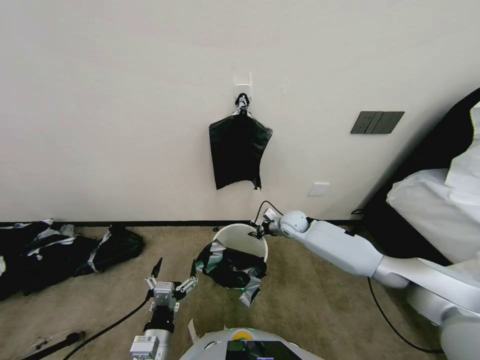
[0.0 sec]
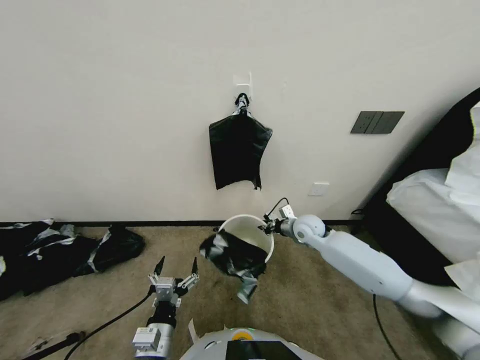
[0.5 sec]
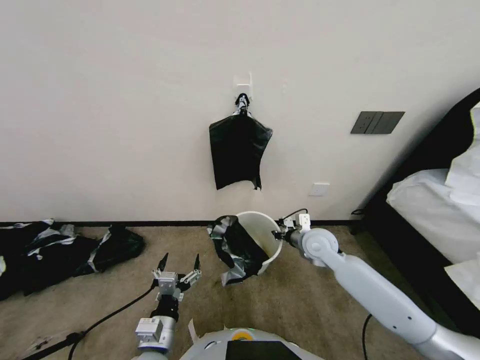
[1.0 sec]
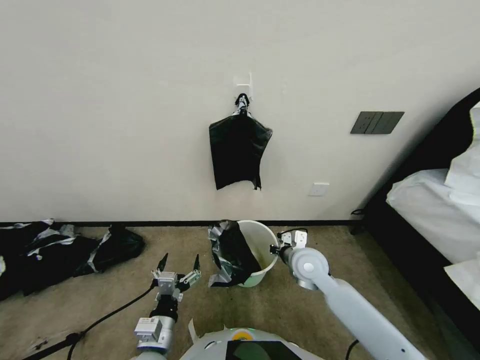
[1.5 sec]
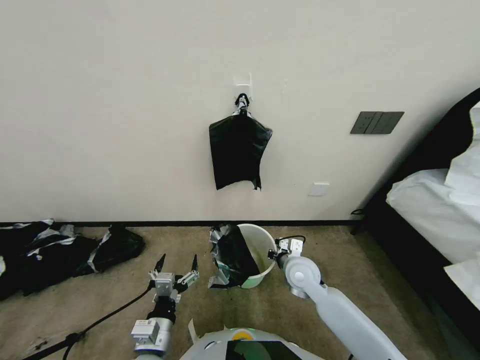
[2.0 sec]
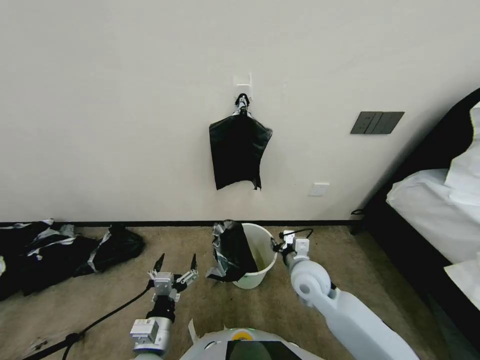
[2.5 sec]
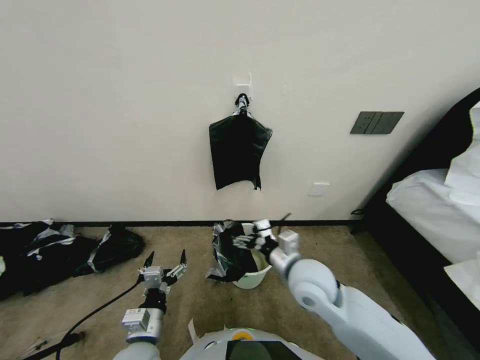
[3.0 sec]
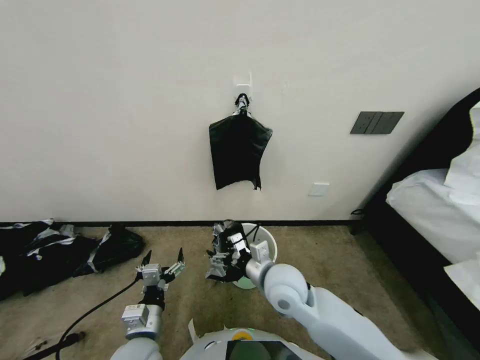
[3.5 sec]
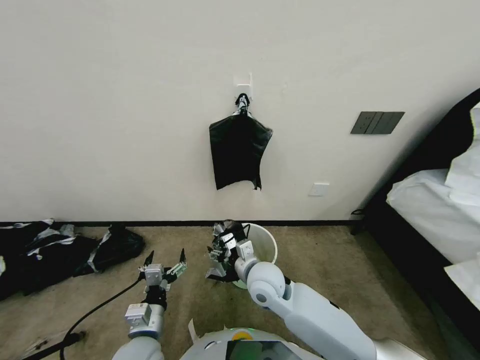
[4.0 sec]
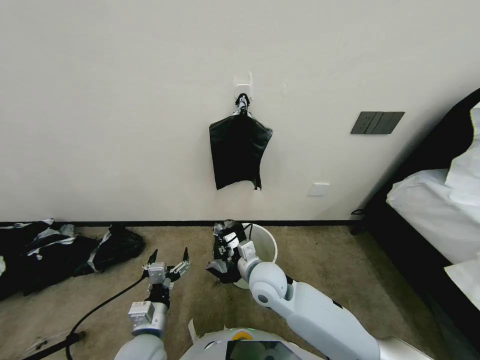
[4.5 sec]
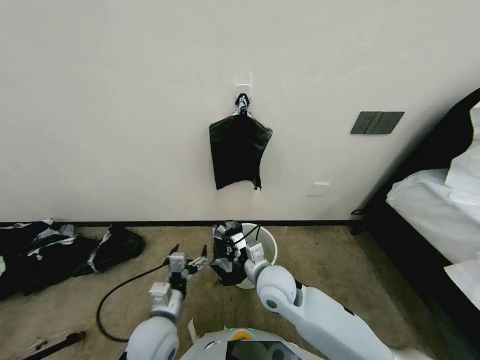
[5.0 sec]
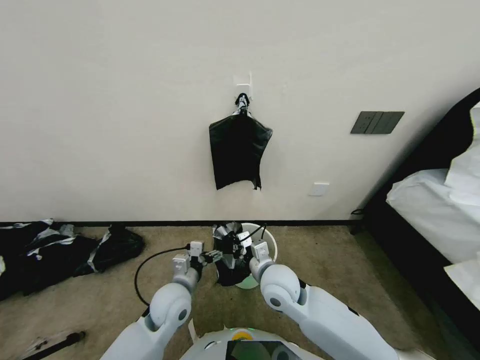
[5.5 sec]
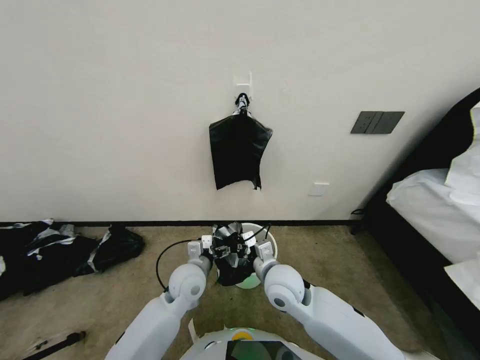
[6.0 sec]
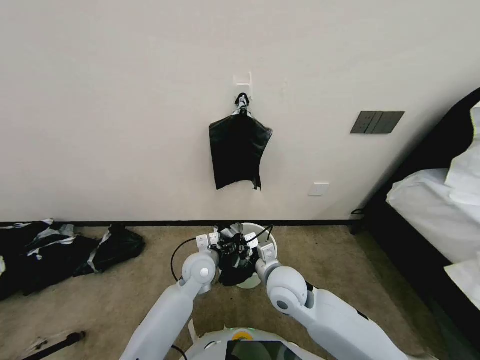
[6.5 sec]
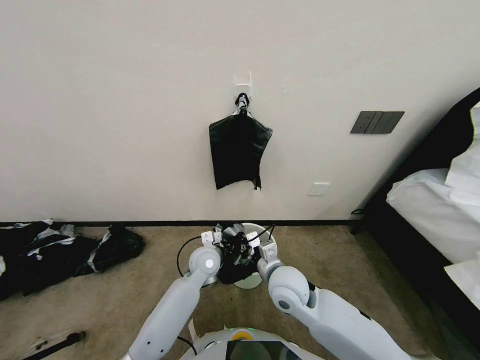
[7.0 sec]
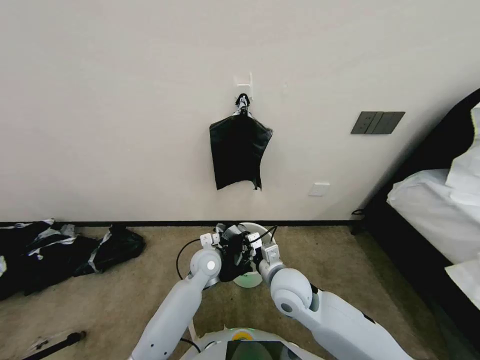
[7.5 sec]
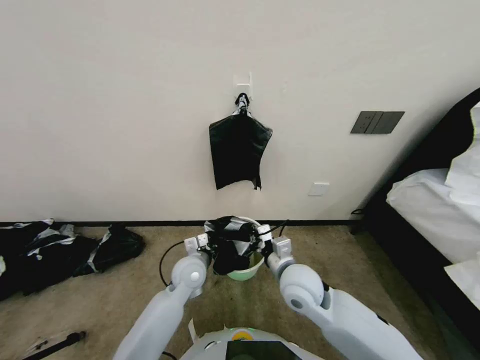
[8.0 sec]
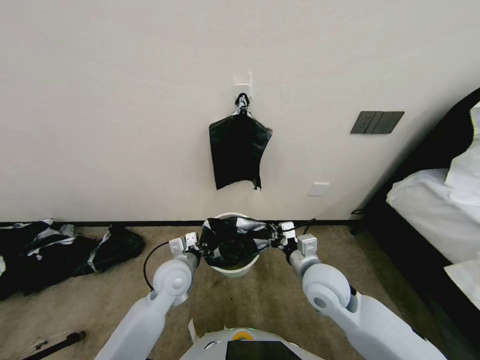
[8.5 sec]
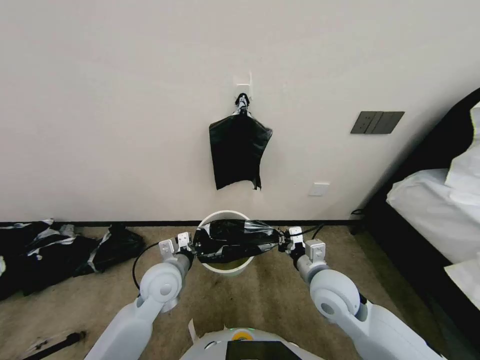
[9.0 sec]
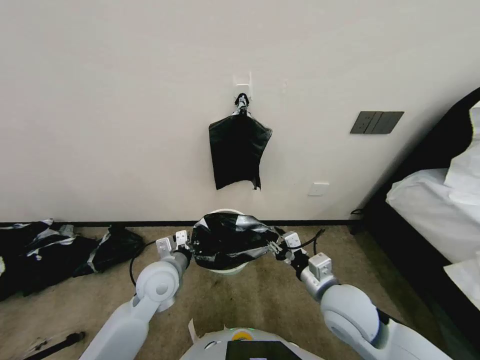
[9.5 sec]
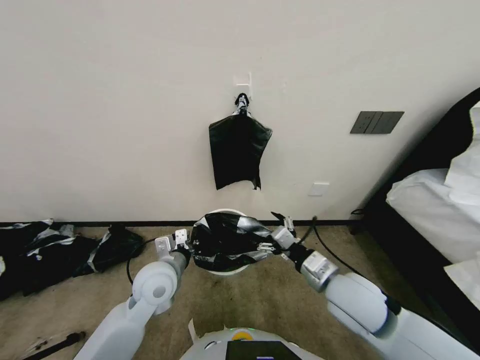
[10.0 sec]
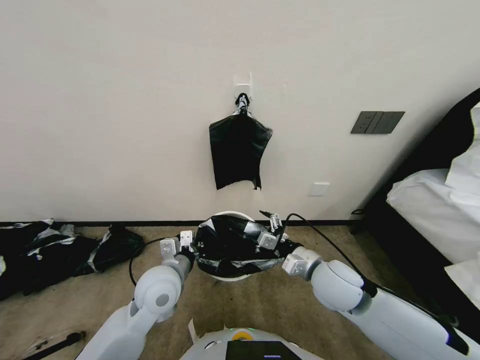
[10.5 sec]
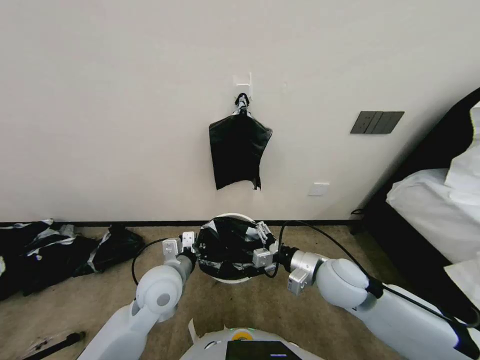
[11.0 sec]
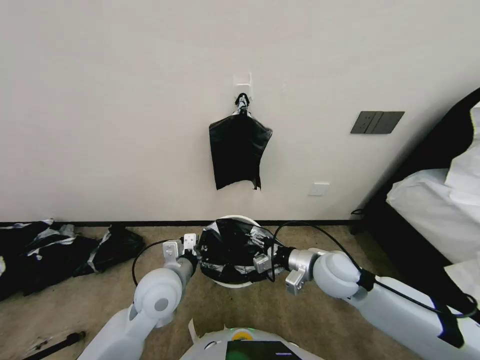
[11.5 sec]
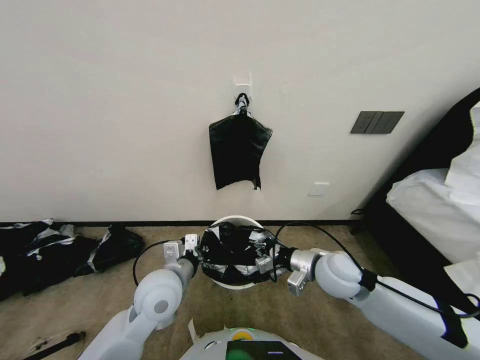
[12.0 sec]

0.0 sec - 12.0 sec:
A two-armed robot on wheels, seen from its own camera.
Task of the whole recording: Place a trash bag onto the trash bin.
0.0 sec - 2.0 sec: The right gripper travels backward by some 20 cm.
2.0 sec - 4.0 sec: The right gripper moves to the left, about 10 cm, and opens up.
4.0 sec - 6.0 sec: The right gripper closes its fingers. Meanwhile the left gripper heads forward and to the right, covering roughly 15 cm.
6.0 sec - 8.0 sec: The left gripper travels forward by about 5 cm, and closes.
8.0 sec - 10.0 sec: The right gripper shifts approximately 10 cm to the right, and opens its fingers, while the left gripper travels upward, to the left and backward by approximately 15 cm.
10.0 sec - 12.0 sec: The right gripper shifts some 5 cm forward, and closes up.

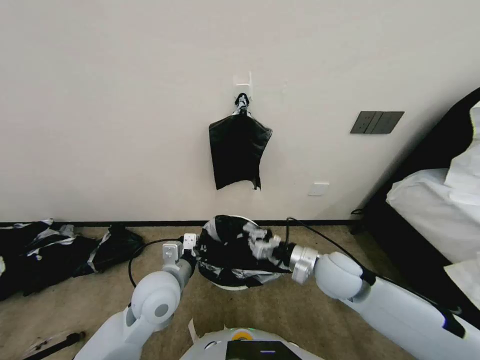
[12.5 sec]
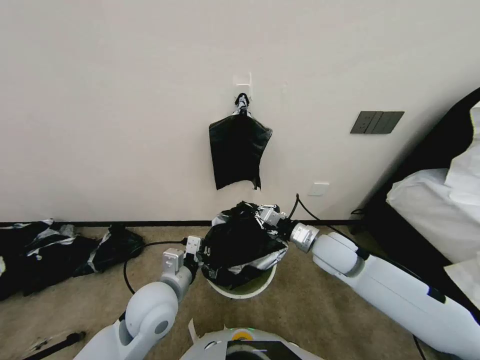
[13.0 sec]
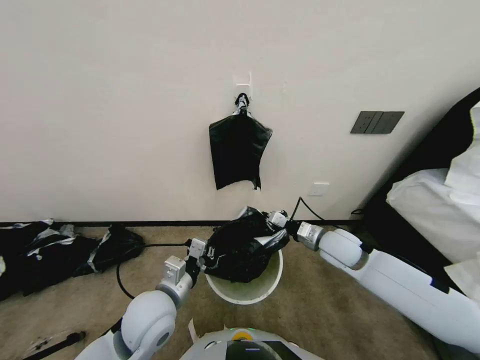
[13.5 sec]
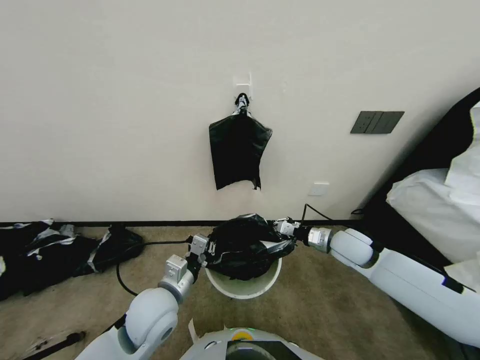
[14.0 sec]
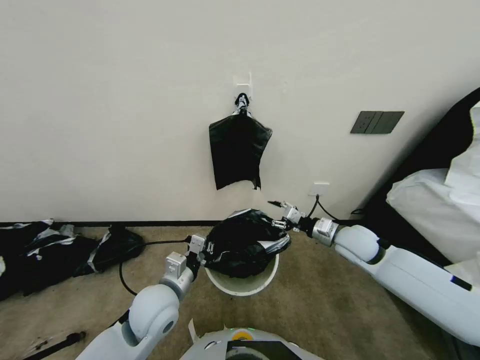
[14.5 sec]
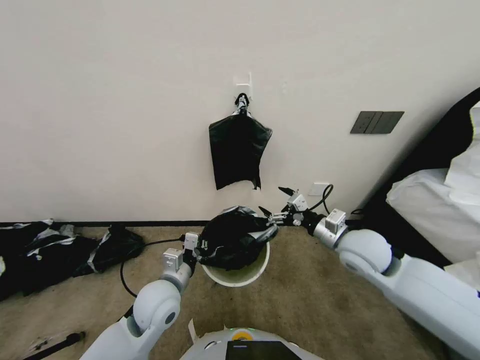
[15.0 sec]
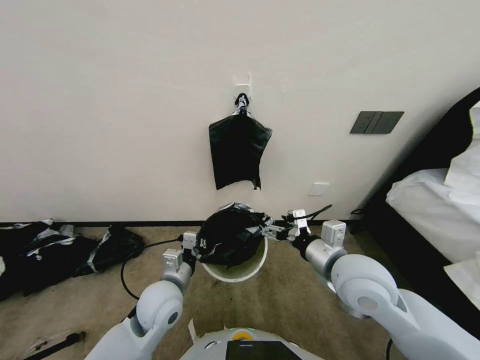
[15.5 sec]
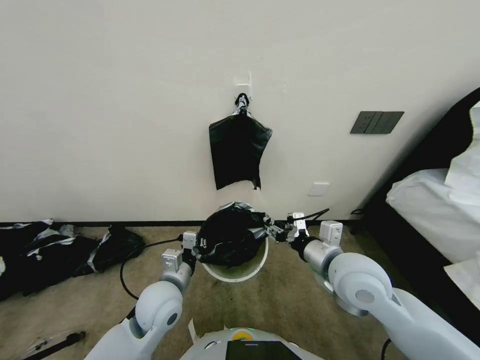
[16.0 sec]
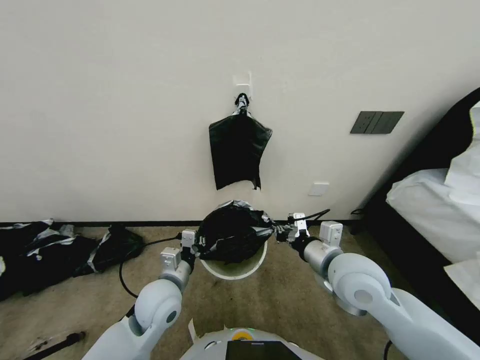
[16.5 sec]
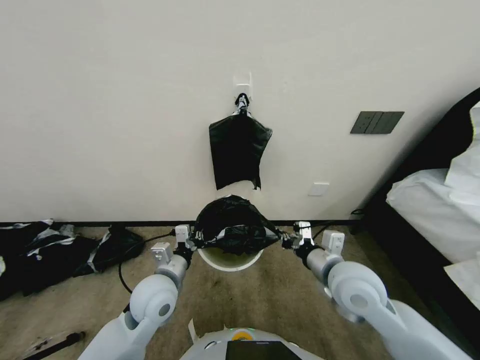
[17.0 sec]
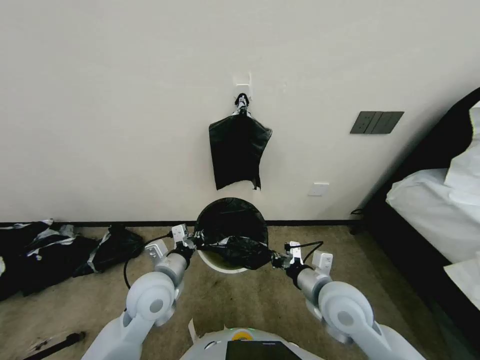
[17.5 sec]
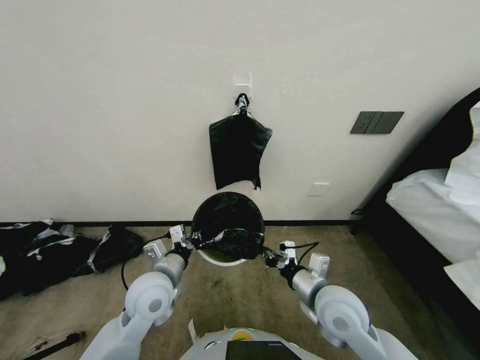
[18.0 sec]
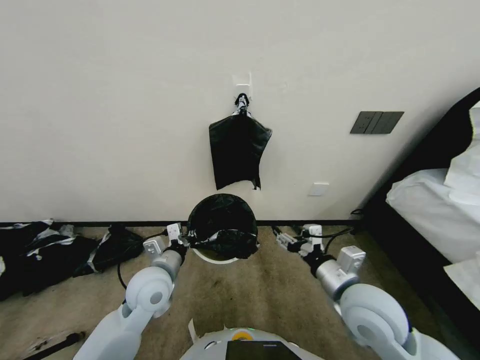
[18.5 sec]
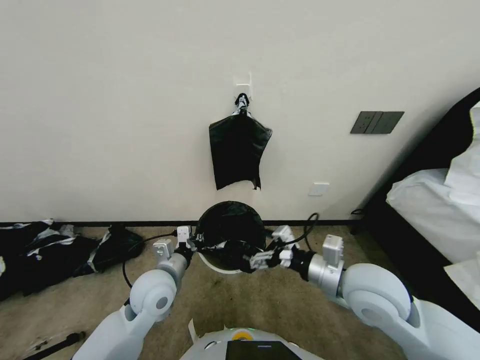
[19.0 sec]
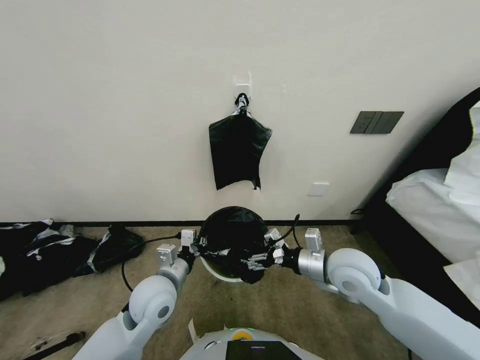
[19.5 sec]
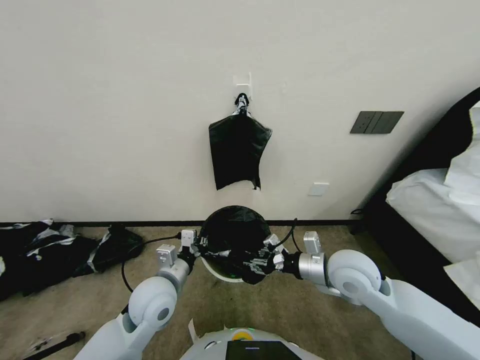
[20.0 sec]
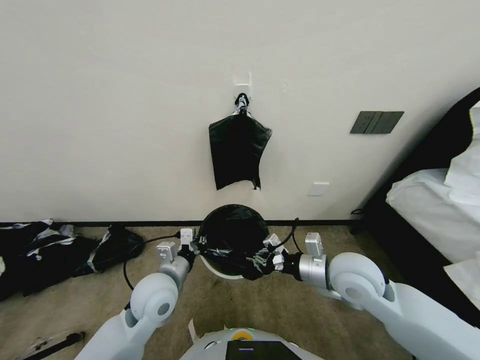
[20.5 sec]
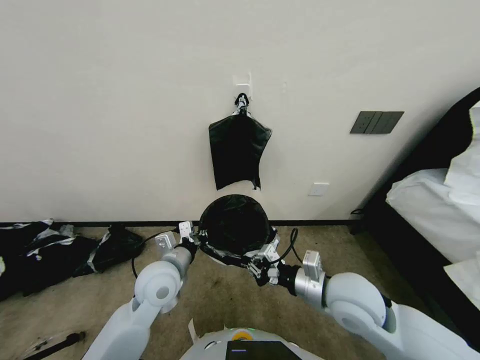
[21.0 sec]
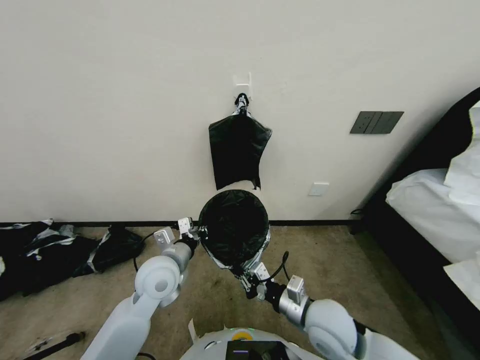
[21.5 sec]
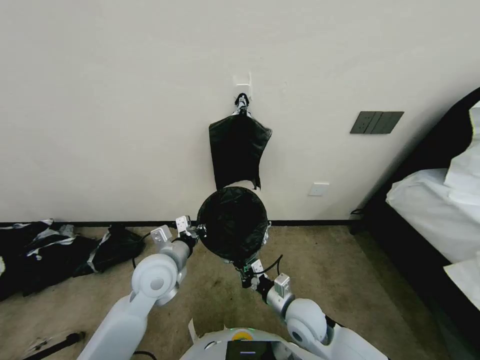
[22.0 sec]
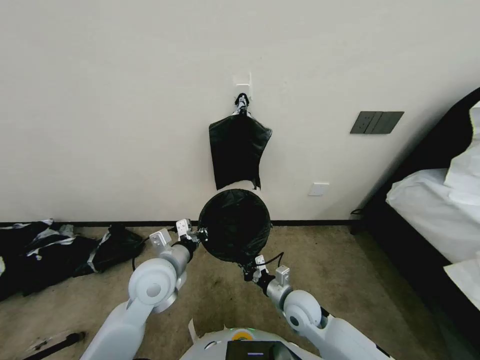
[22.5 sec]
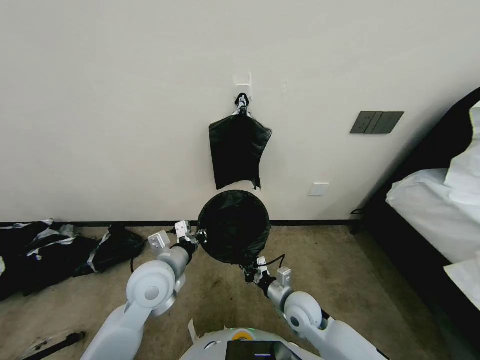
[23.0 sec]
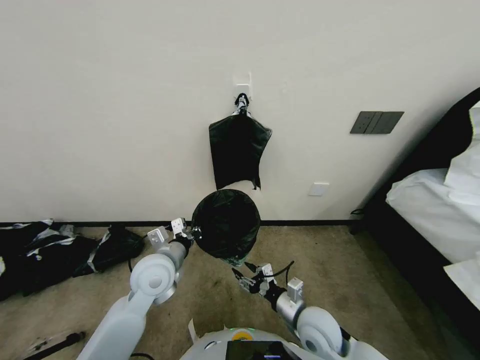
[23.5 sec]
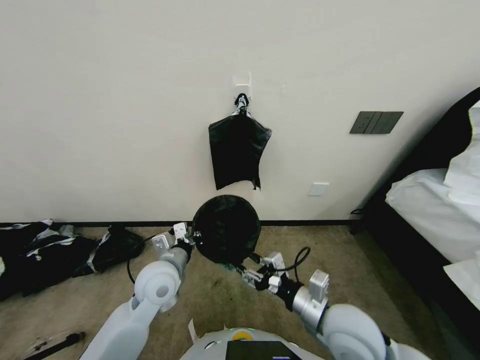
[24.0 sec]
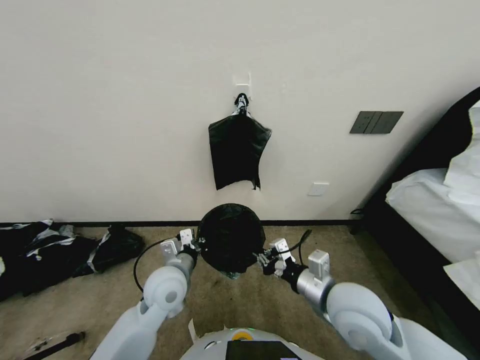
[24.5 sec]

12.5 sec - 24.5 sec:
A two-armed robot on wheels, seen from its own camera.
Task of the whole recording: Place a trash bag onto the trash bin.
12.5 sec - 14.5 sec: The right gripper heads to the right and forward, covering some 10 cm, and opens up.
14.5 sec - 16.5 sec: The right gripper is displaced backward, to the left and upward by about 15 cm, and closes its fingers.
16.5 sec - 18.5 sec: The right gripper moves approximately 5 cm, and opens up.
18.5 sec - 20.5 sec: The right gripper travels forward by about 5 cm, and closes its fingers.
20.5 sec - 22.5 sec: The right gripper heads downward, covering approximately 20 cm.
22.5 sec - 24.5 sec: The right gripper travels upward by approximately 15 cm, and opens, then closes once more.

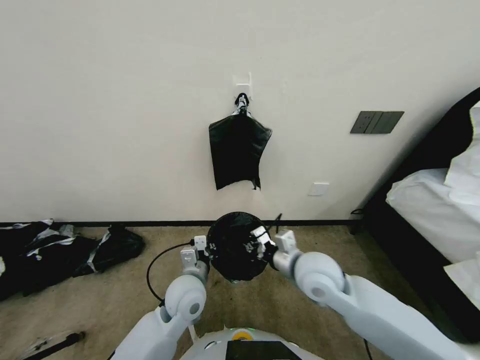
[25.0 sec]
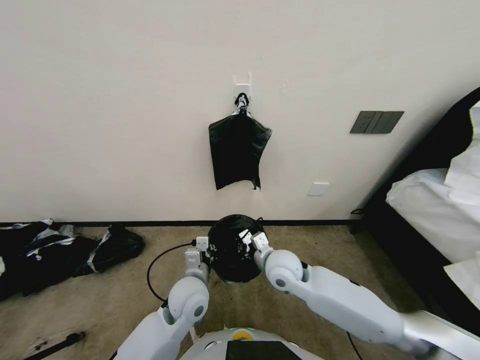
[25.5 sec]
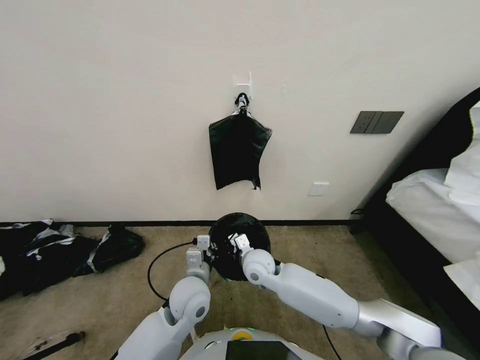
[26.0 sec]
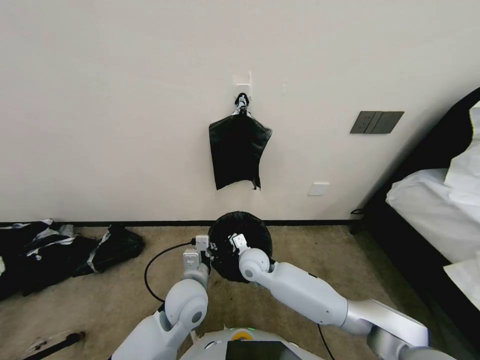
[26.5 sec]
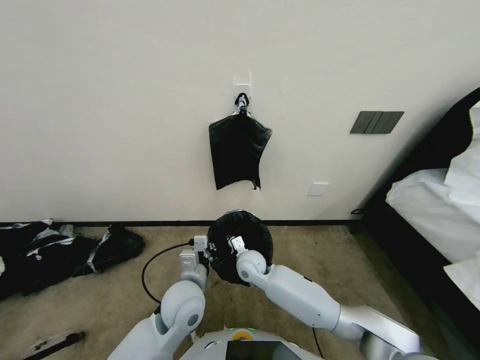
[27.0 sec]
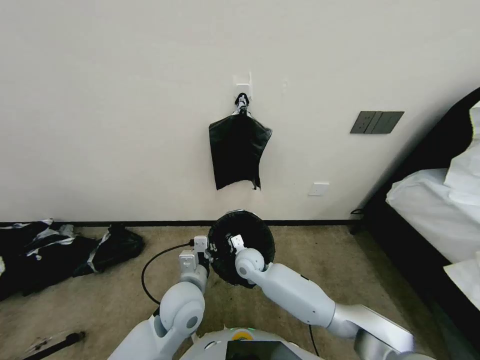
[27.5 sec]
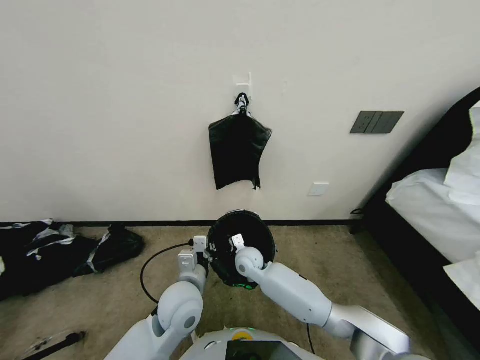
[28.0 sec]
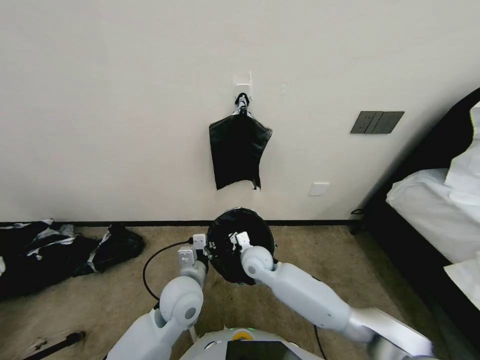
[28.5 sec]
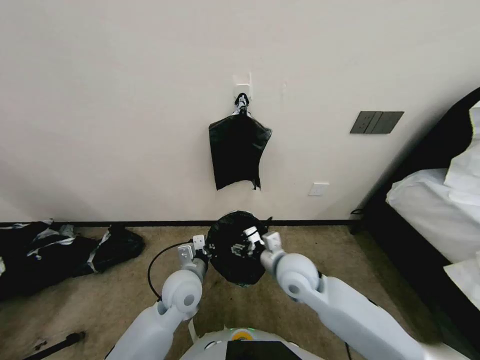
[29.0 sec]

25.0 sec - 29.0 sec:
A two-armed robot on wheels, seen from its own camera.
Task of the whole recording: Place a trash bag onto the trash bin.
25.0 sec - 27.0 sec: The right gripper shifts roughly 25 cm downward, to the left and forward.
27.0 sec - 29.0 sec: The right gripper shifts approximately 15 cm upward, to the right and backward, and opens its fingers.
